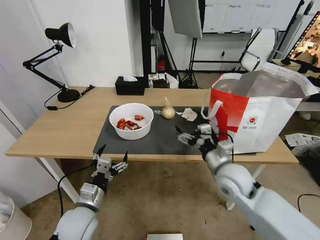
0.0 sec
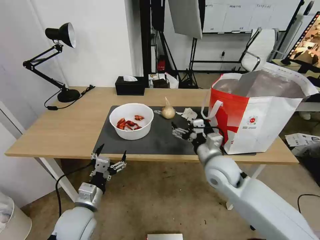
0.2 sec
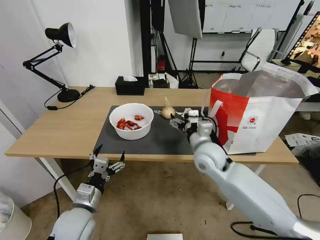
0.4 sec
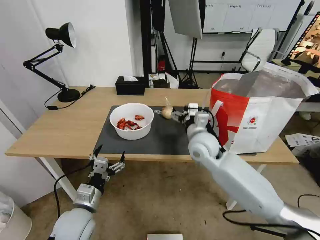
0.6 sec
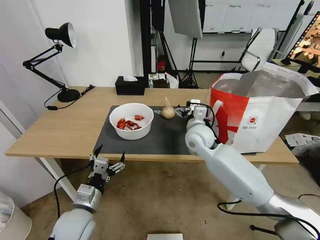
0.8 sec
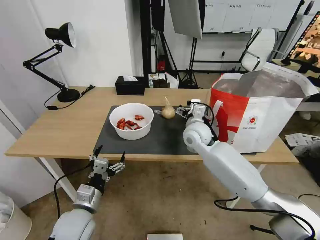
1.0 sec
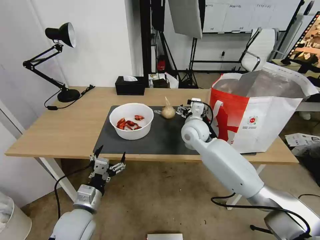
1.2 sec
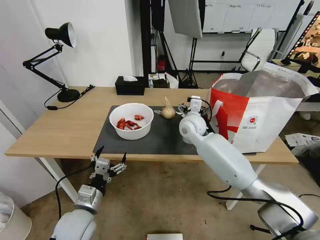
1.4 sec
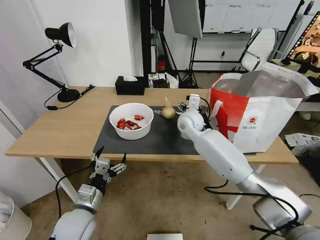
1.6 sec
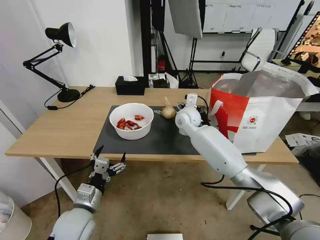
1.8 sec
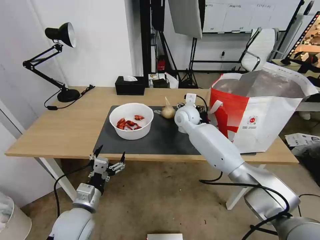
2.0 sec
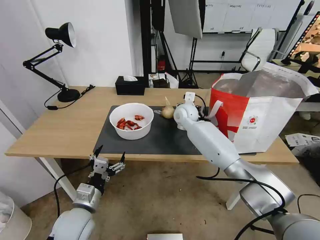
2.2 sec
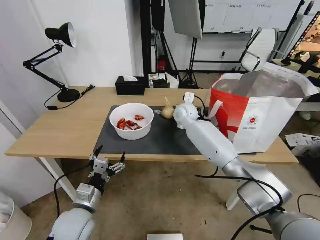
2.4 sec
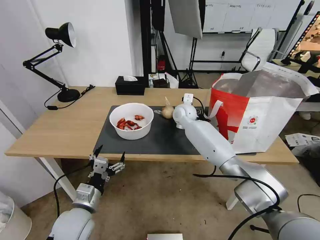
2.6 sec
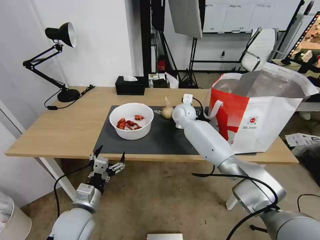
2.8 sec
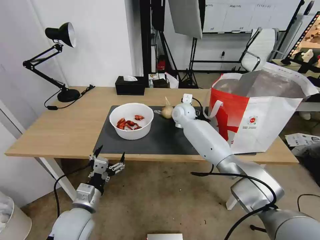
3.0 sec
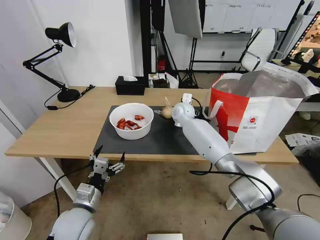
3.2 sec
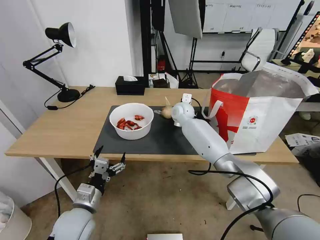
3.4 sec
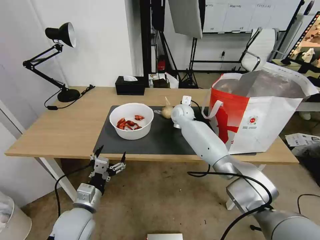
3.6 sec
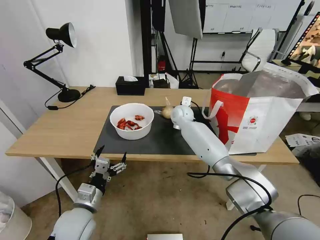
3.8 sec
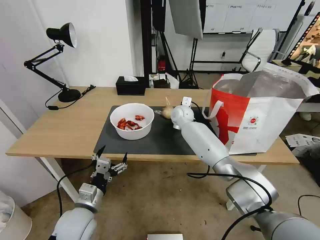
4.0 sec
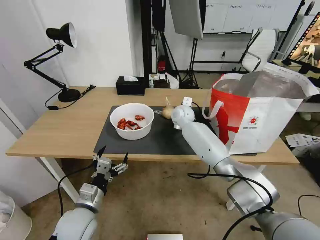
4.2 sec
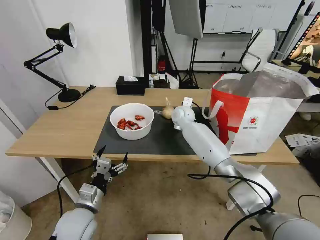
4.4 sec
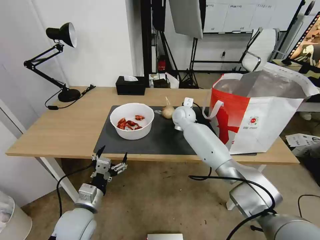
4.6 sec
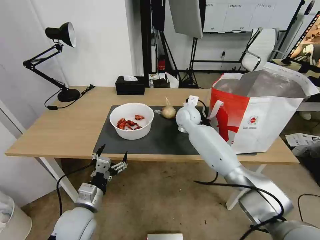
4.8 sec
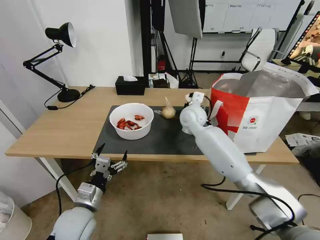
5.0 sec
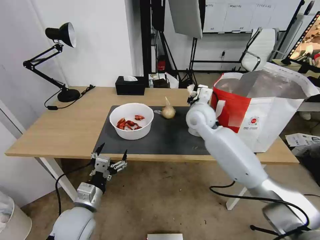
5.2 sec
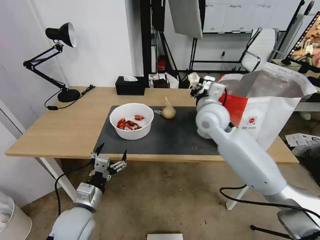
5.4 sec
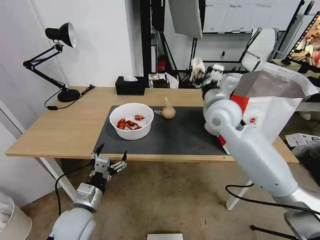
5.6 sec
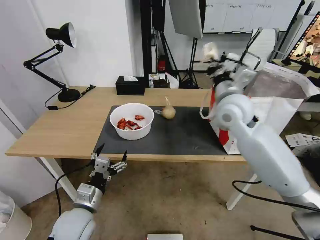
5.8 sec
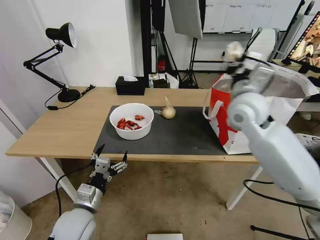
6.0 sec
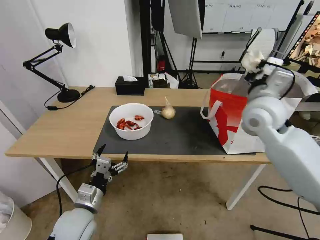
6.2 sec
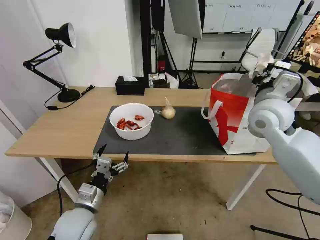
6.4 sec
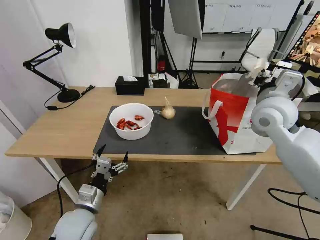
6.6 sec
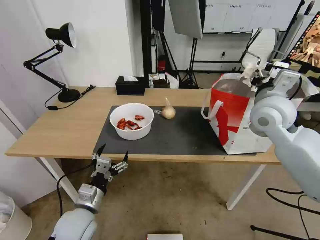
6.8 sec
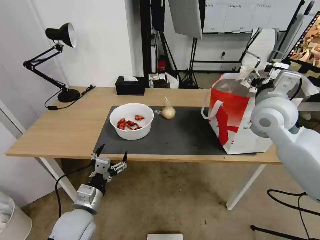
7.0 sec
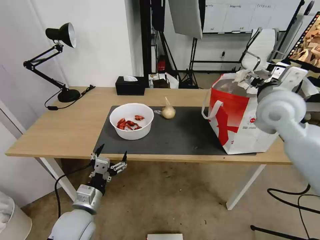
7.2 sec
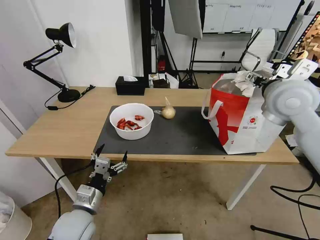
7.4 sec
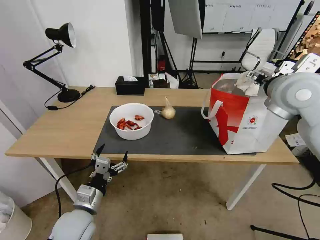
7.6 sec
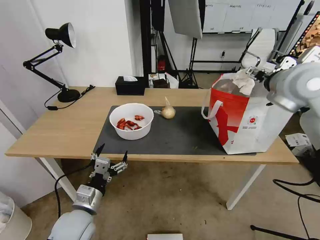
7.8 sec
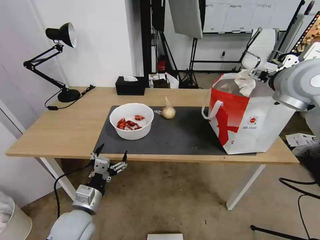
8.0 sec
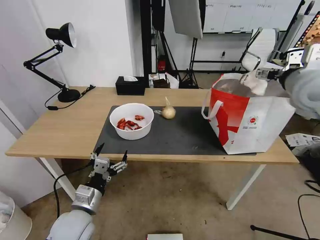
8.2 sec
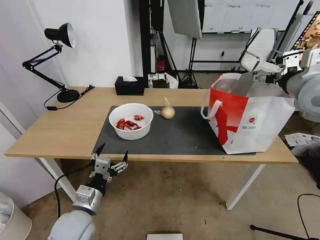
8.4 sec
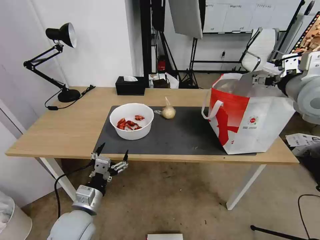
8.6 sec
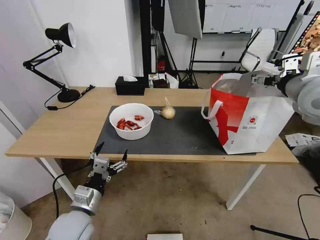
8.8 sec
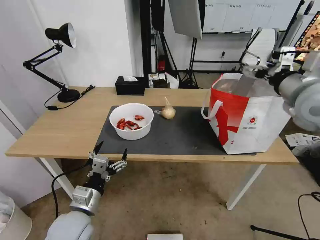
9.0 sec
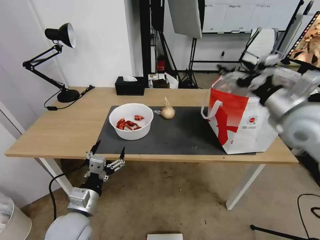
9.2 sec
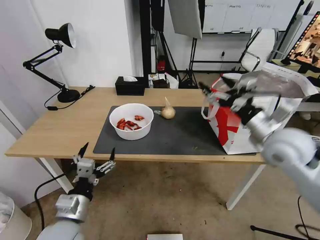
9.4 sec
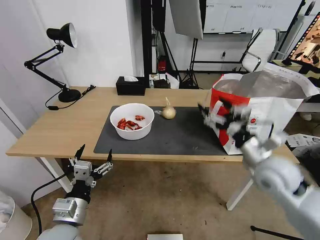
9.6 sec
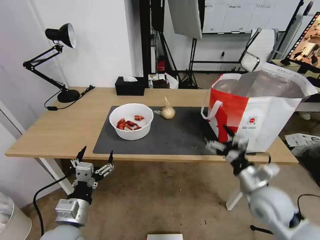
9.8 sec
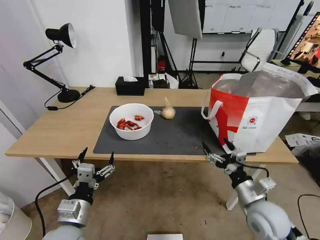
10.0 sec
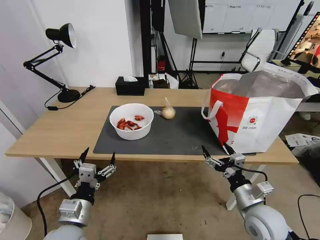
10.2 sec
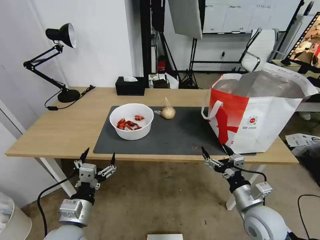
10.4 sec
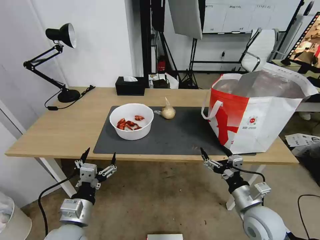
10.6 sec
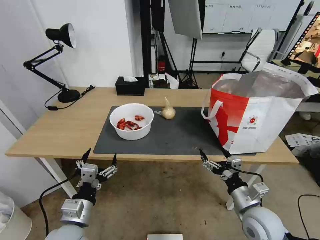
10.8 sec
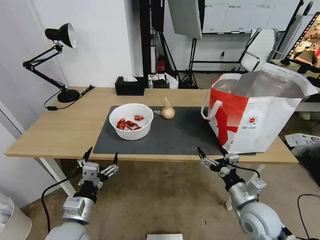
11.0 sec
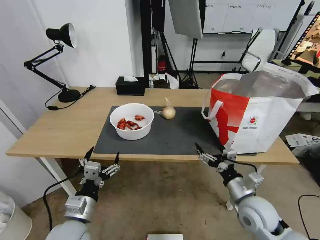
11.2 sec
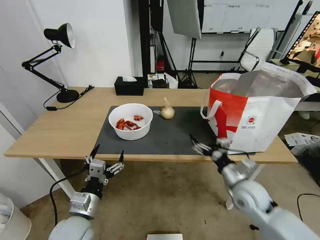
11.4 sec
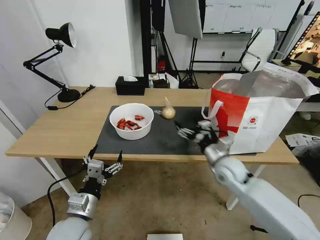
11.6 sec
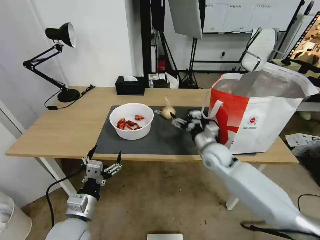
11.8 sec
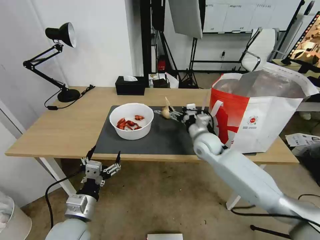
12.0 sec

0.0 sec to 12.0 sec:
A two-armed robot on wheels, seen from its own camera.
Task of the whole recording: Pick up the trash from the table and place it into the takeout bag.
0.0 sec to 1.6 sec: The right gripper shifts about 25 cm forward and to the left.
1.6 sec to 3.0 sec: The right gripper moves forward, about 5 cm.
3.0 sec to 4.4 sec: The right gripper closes.
4.4 sec to 6.0 sec: The right gripper heads backward, upward and to the right, covering about 30 cm.
6.0 sec to 7.6 sec: The right gripper shifts some 10 cm to the right and upward, and opens up.
7.6 sec to 9.0 sec: The right gripper changes place by about 5 cm.
9.0 sec to 10.4 sec: The right gripper goes roughly 35 cm downward and backward.
10.4 sec to 12.0 sec: The right gripper is displaced forward and to the left by roughly 30 cm.

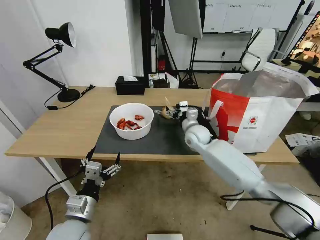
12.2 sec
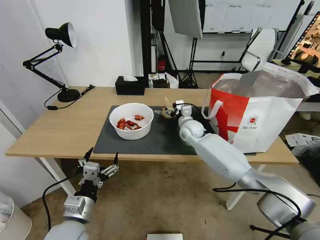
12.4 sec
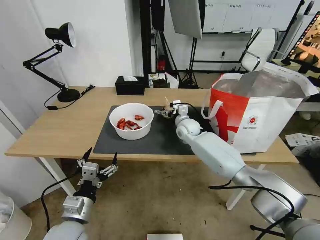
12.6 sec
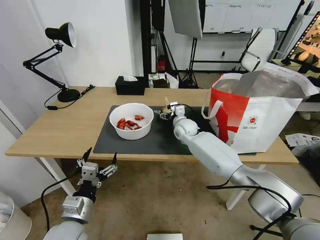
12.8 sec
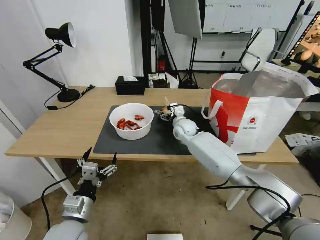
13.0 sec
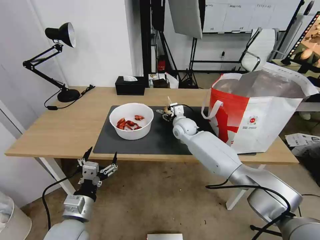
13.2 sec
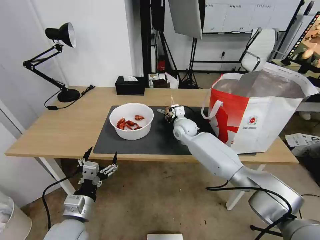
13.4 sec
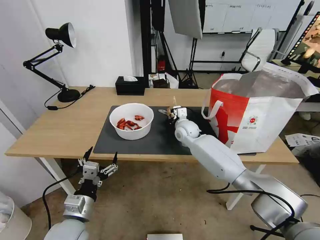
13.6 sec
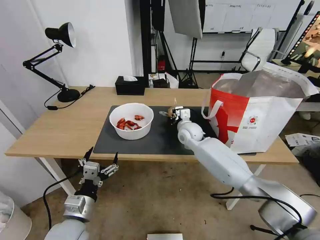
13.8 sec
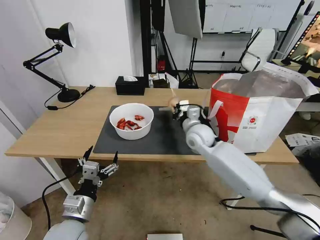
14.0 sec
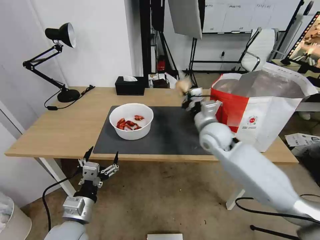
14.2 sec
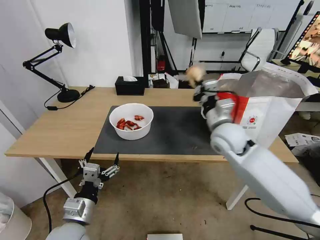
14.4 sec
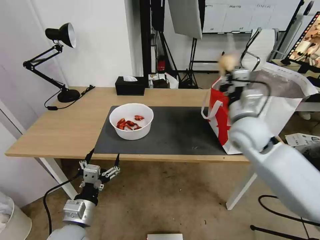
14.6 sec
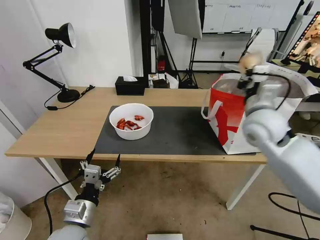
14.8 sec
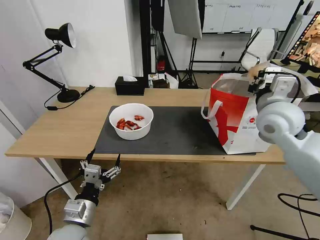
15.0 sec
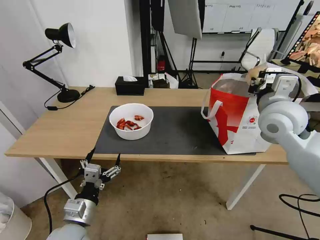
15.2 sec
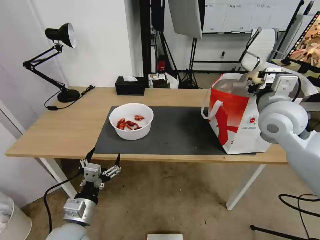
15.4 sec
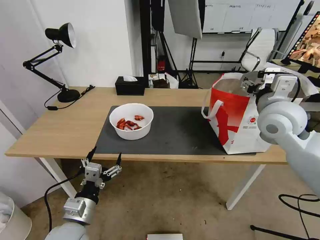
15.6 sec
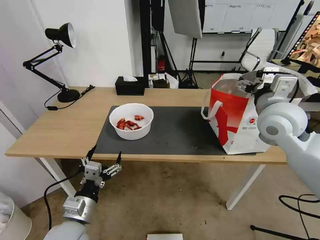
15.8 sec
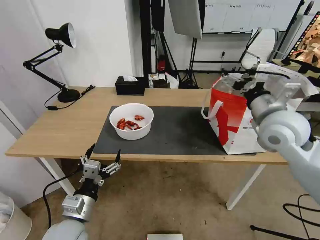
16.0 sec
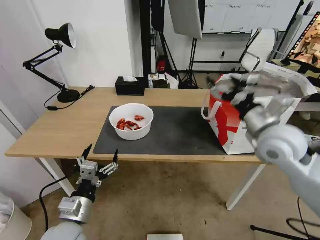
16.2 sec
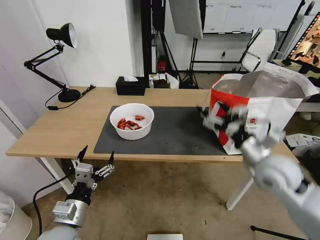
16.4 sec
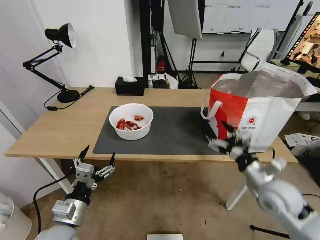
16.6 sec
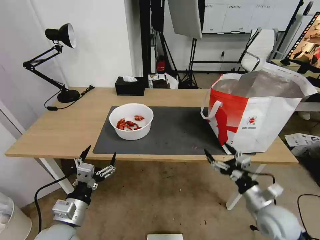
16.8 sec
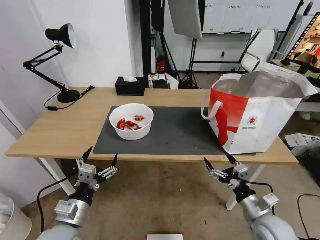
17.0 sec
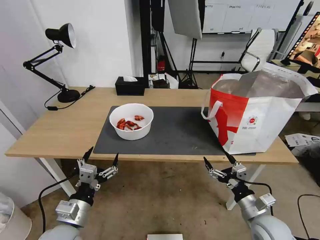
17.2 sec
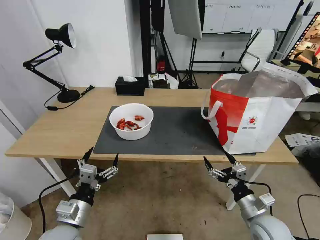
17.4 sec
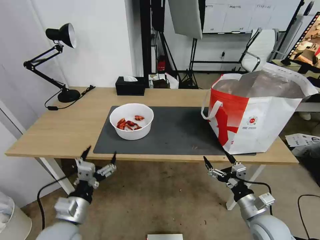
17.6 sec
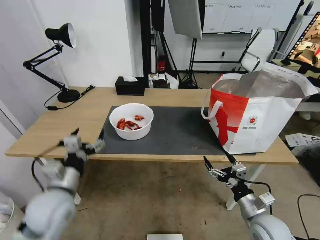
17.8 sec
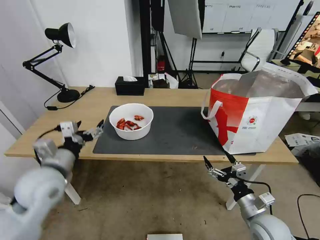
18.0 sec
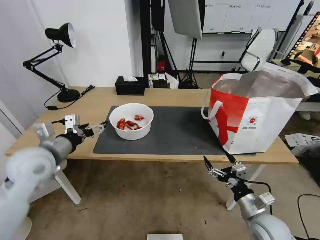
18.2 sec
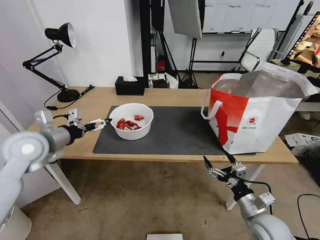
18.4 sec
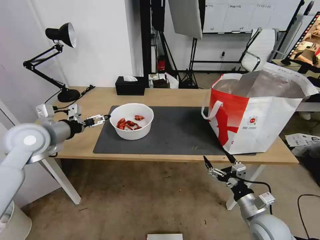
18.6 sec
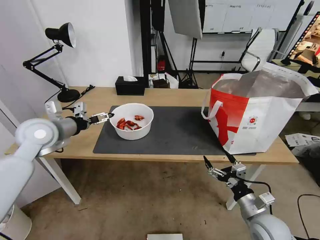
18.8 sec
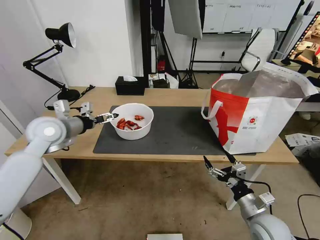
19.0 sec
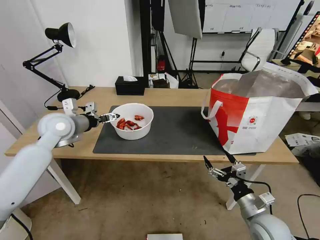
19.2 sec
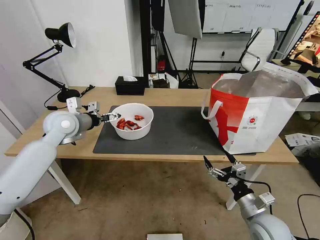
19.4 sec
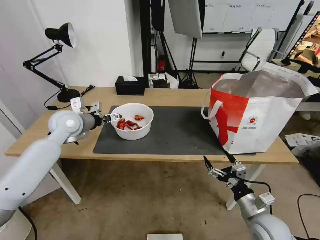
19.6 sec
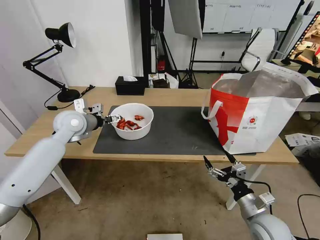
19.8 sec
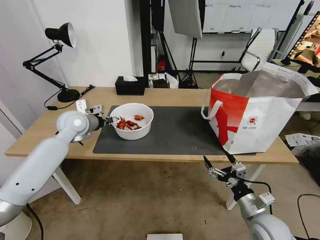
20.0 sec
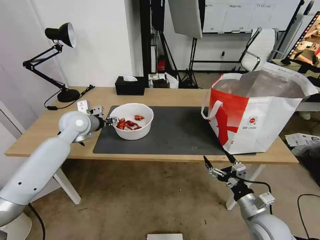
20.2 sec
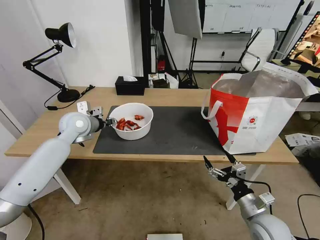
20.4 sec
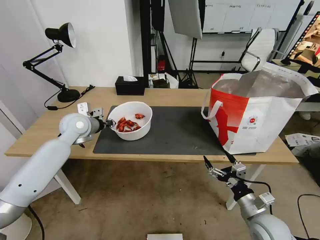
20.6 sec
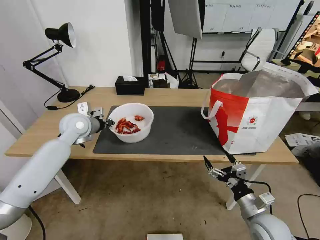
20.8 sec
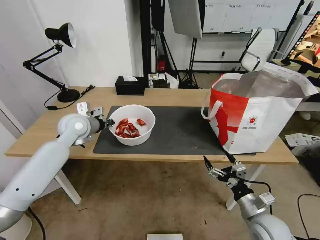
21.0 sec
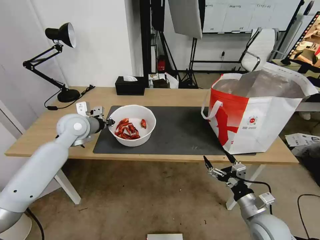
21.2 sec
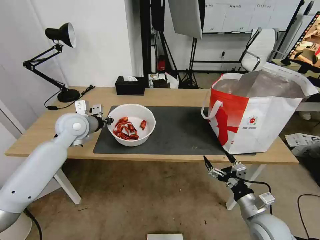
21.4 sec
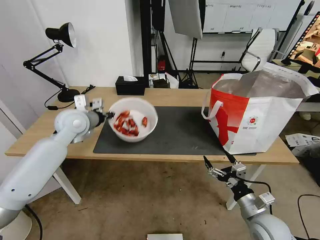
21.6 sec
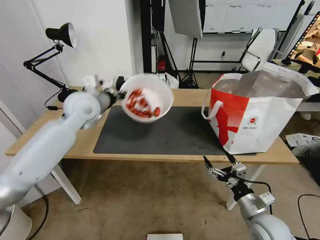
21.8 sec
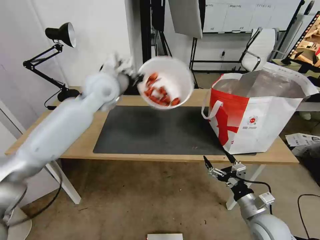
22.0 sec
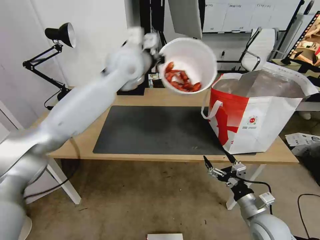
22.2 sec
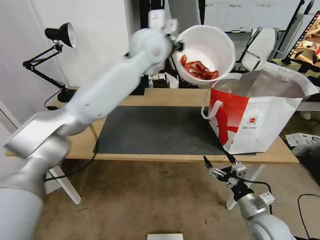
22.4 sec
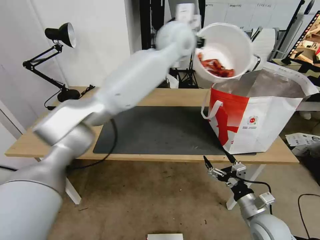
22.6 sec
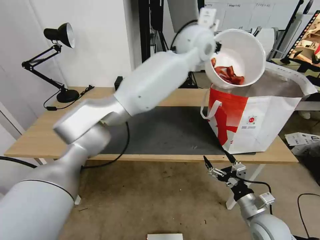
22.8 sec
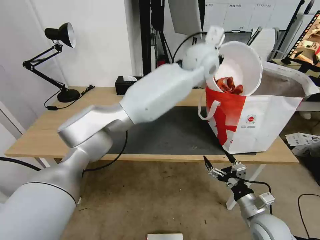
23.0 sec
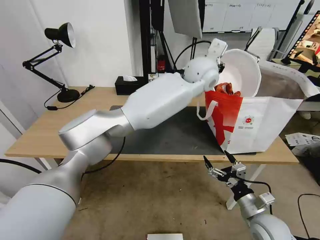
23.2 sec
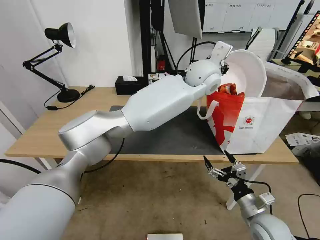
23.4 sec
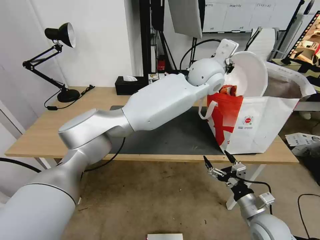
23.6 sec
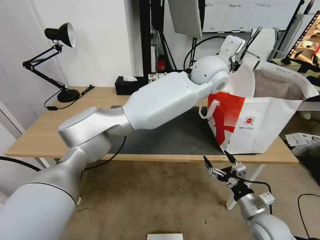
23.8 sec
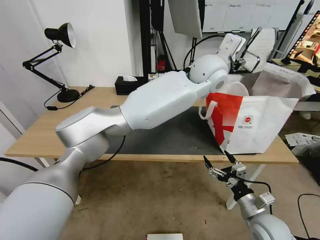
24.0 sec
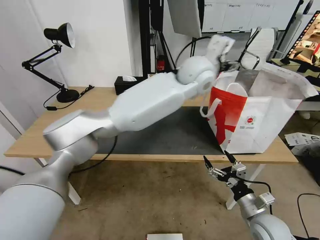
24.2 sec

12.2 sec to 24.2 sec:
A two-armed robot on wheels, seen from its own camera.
Task of the whole recording: Pick up the trash from the table and place it into the takeout bag.
12.2 sec to 13.8 sec: The right gripper closes its fingers.
13.8 sec to 15.2 sec: The right gripper is displaced upward, to the right and backward by about 30 cm.
15.2 sec to 16.6 sec: The right gripper heads downward and backward, covering roughly 20 cm, and opens.
16.6 sec to 18.2 sec: The left gripper heads forward, upward and to the left, covering roughly 20 cm; the right gripper travels downward and backward by roughly 10 cm.
18.2 sec to 19.8 sec: The left gripper heads forward, covering roughly 15 cm.
19.8 sec to 21.2 sec: The left gripper closes up.
21.2 sec to 22.6 sec: The left gripper shifts about 40 cm to the right and upward.
22.6 sec to 24.2 sec: The left gripper is displaced downward by some 5 cm, and opens.
